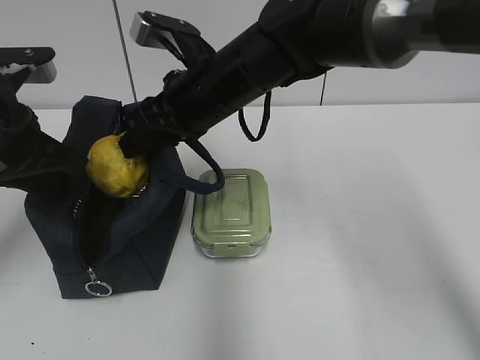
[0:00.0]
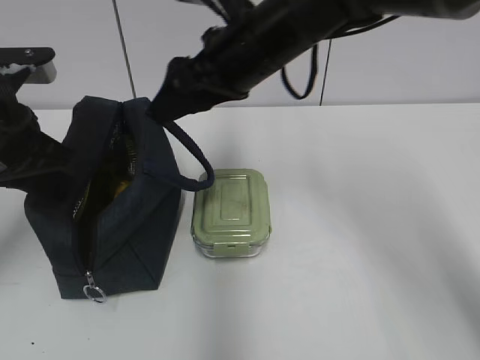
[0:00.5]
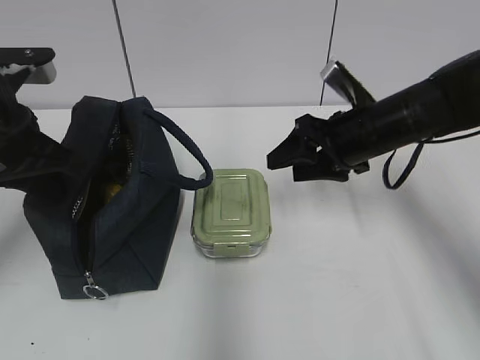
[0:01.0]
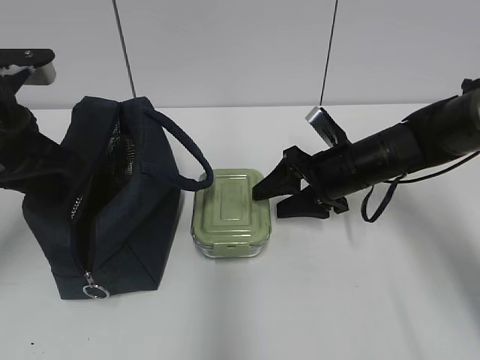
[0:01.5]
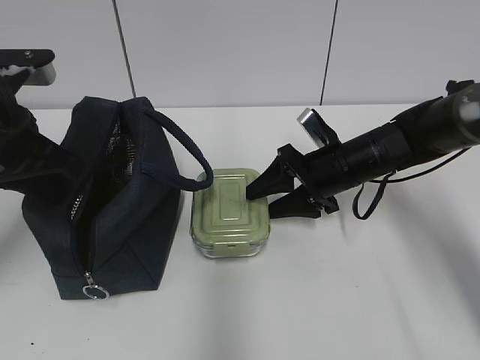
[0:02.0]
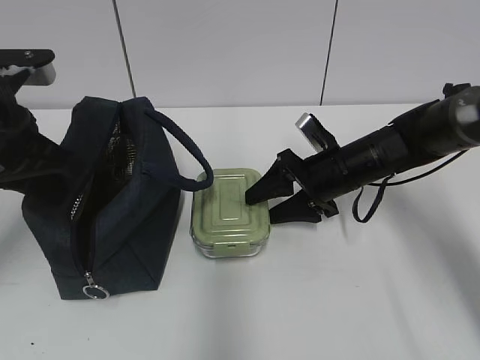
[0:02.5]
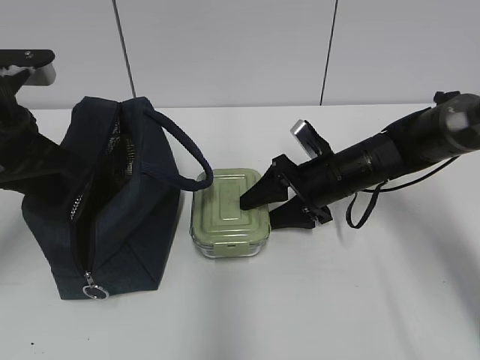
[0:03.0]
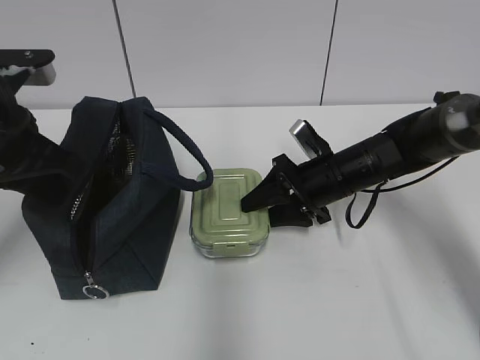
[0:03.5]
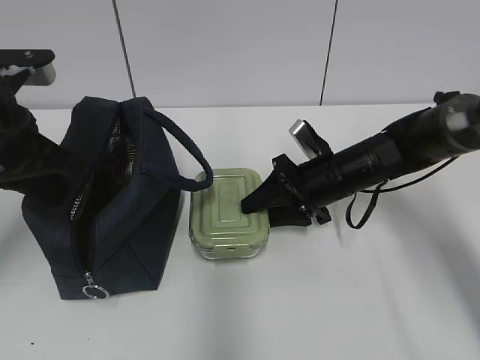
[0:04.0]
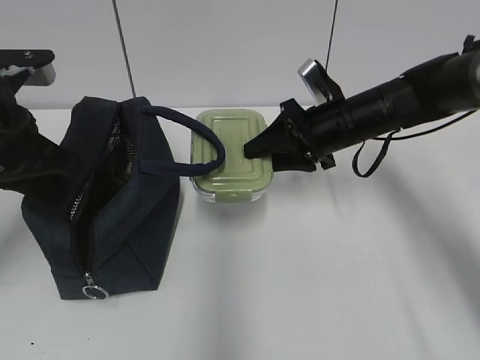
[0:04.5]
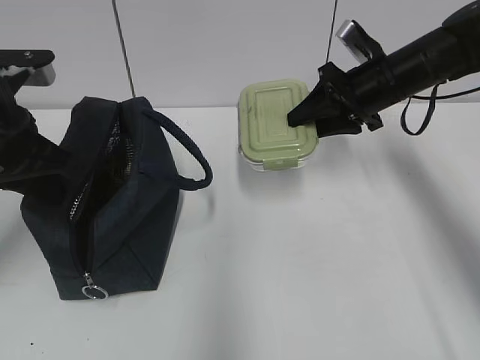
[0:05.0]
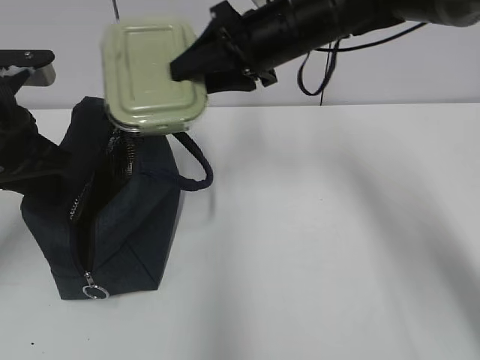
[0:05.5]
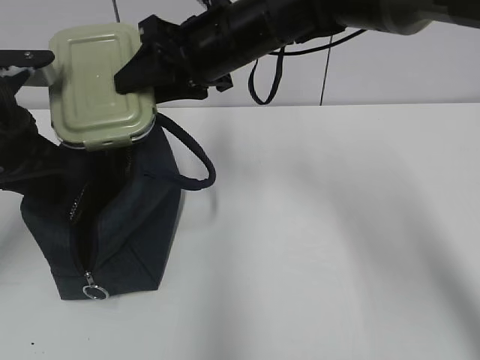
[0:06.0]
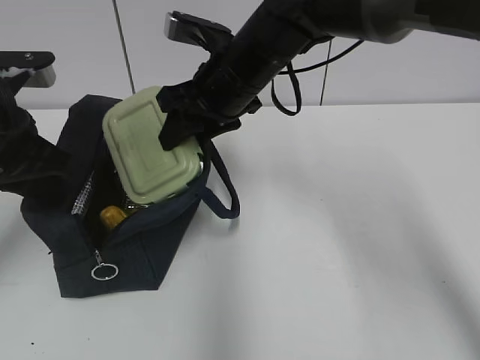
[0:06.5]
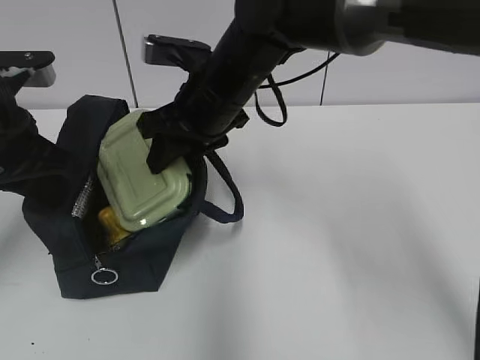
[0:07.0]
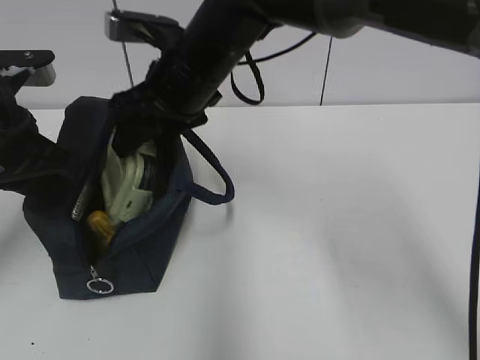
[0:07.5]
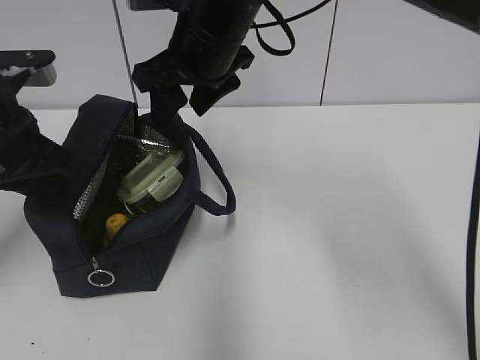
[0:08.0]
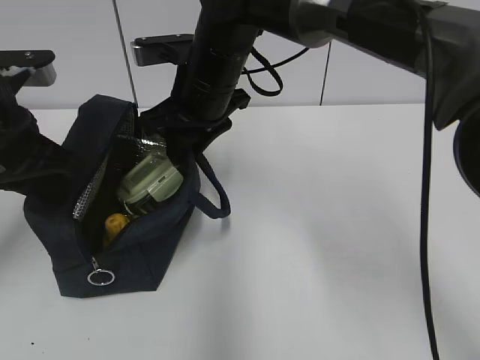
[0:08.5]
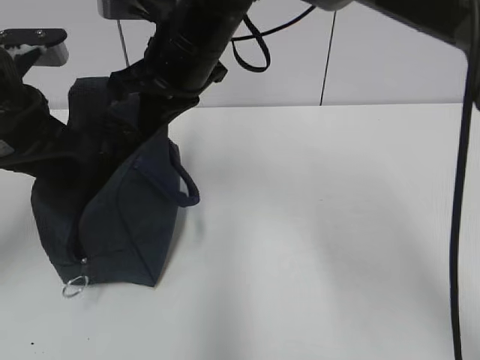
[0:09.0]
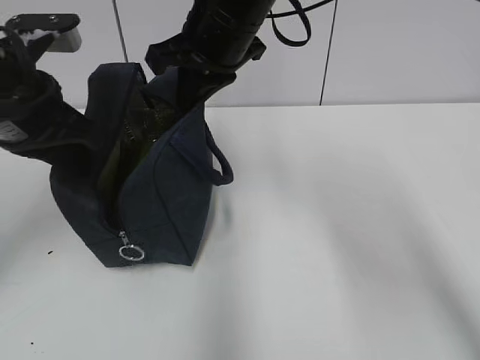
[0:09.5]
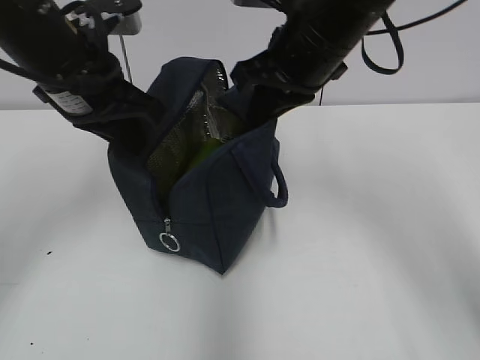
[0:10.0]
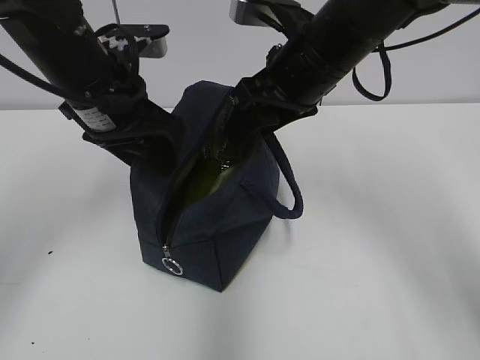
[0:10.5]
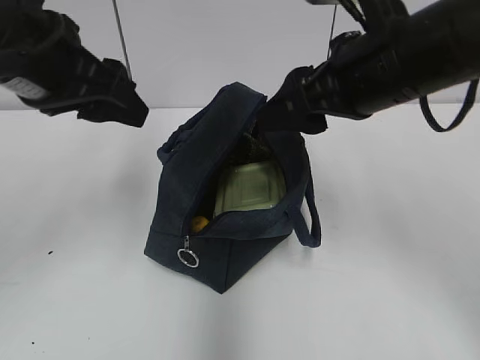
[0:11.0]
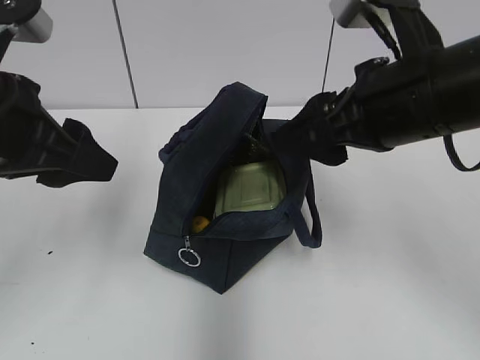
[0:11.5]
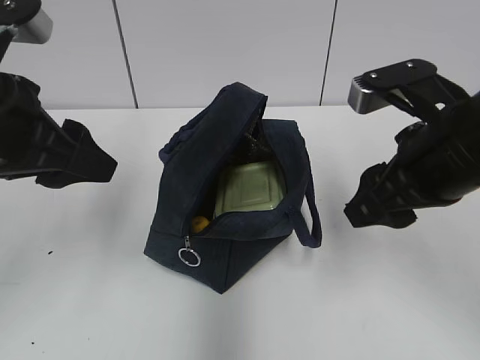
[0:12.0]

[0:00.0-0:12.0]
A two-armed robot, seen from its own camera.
0:00.0 to 0:02.0: The right gripper heads to the right and downward, covering roughly 20 cm, and opens up.
0:02.0 to 0:04.0: The grippers make only small movements.
0:04.0 to 0:06.0: The right gripper is displaced upward and to the left by some 25 cm.
0:08.0 to 0:10.0: The left gripper shifts approximately 10 cm to the right and forward. The right gripper shifts about 10 cm to the right, and closes.
0:10.0 to 0:12.0: The left gripper goes roughly 10 cm backward, and opens its fingers. The right gripper heads backward and to the right, covering some 15 cm, and opens.

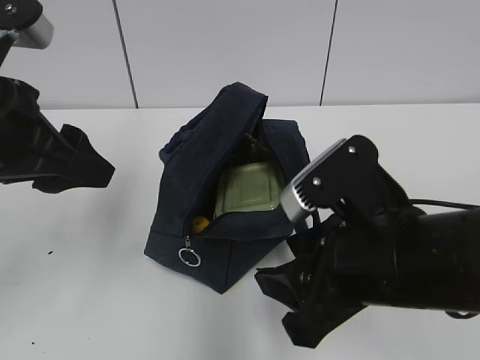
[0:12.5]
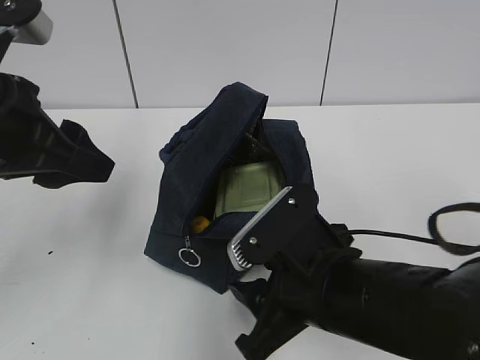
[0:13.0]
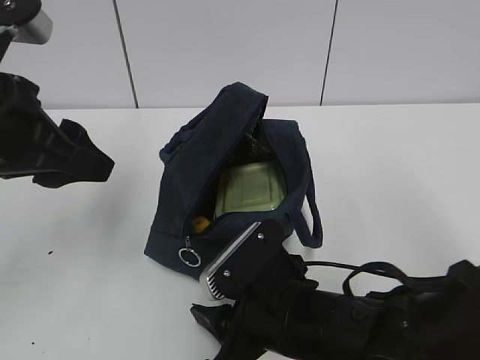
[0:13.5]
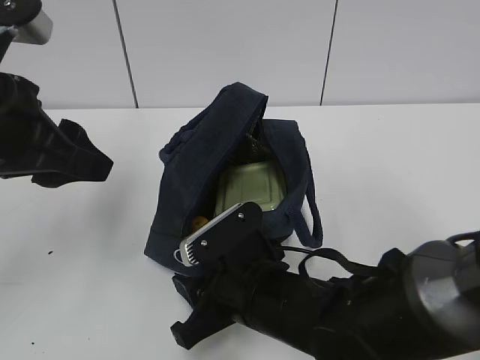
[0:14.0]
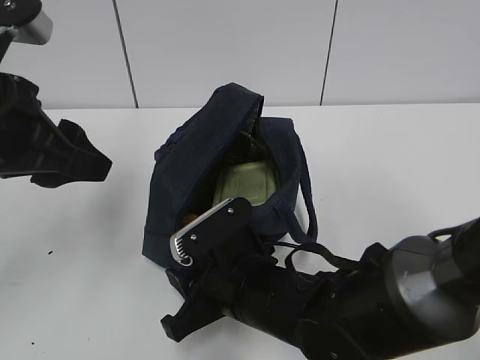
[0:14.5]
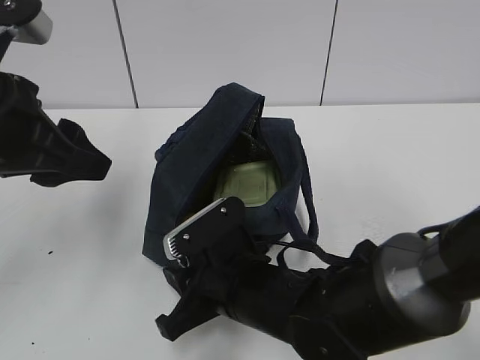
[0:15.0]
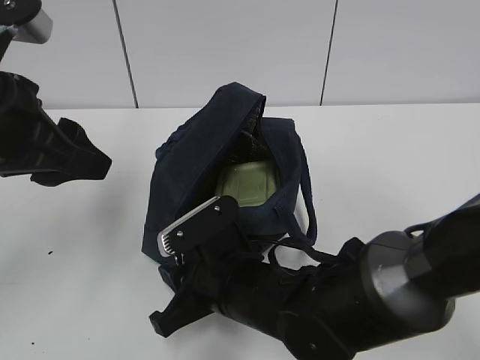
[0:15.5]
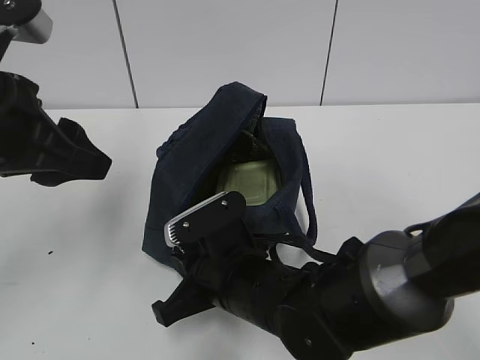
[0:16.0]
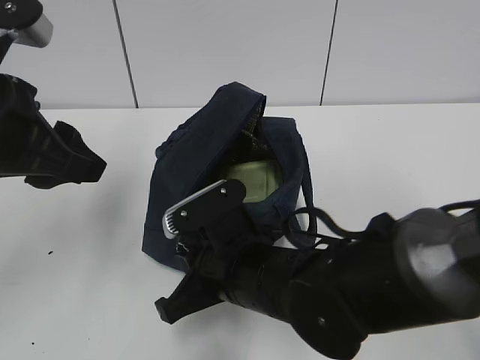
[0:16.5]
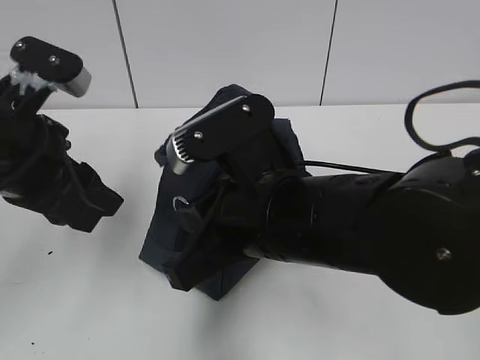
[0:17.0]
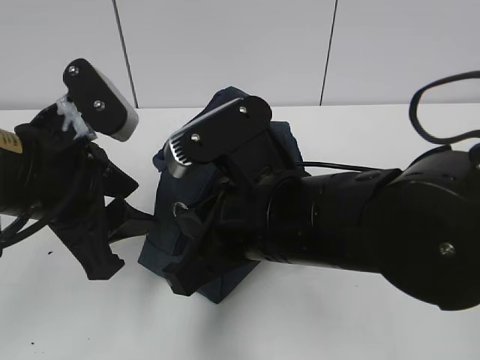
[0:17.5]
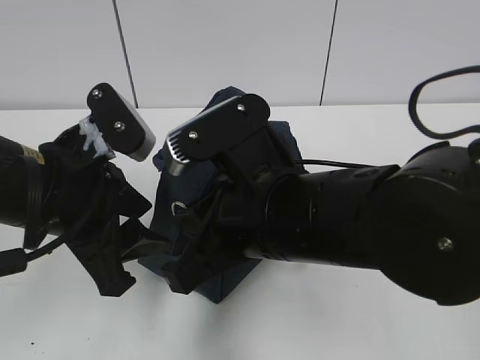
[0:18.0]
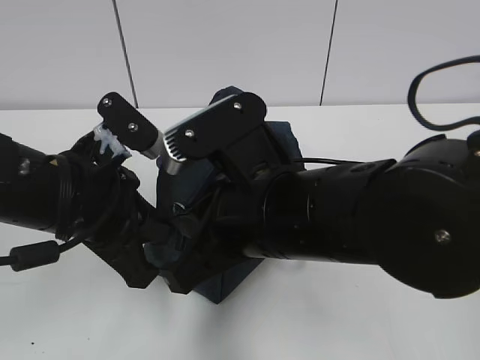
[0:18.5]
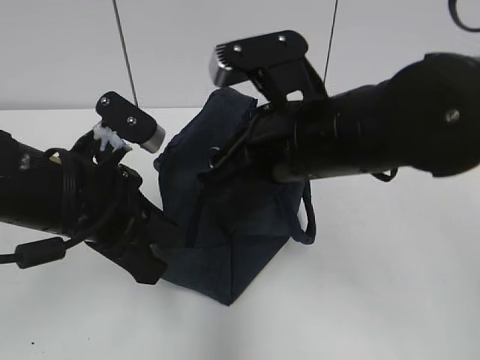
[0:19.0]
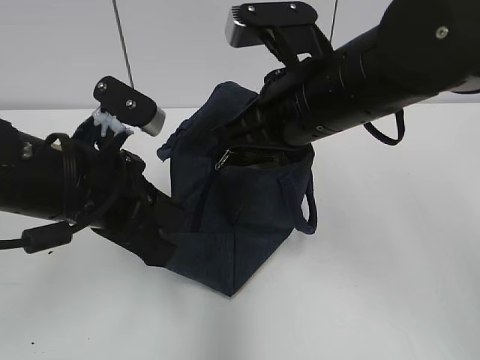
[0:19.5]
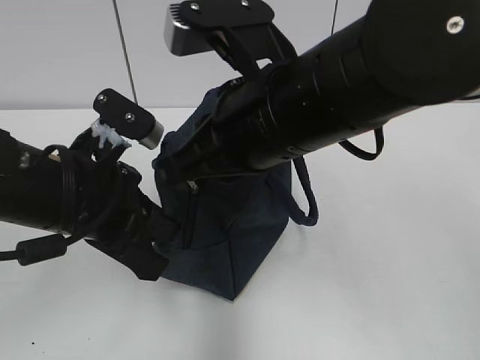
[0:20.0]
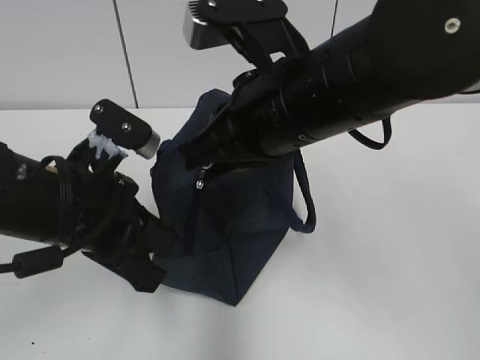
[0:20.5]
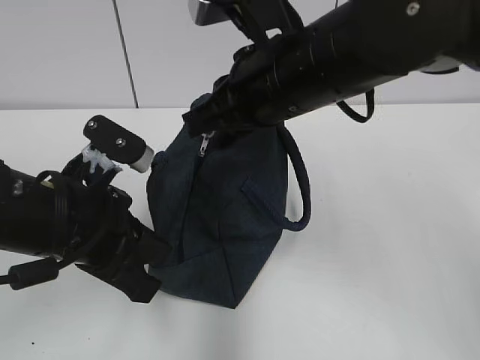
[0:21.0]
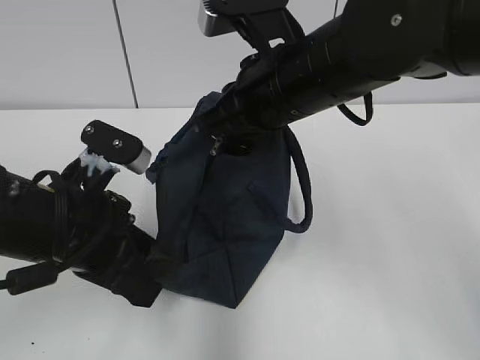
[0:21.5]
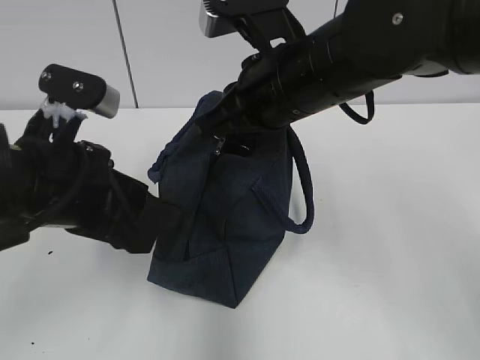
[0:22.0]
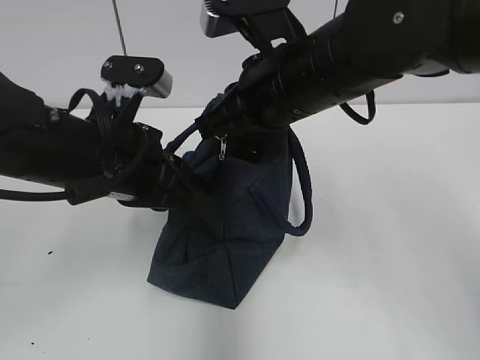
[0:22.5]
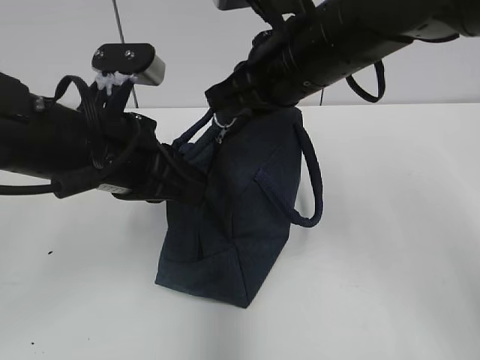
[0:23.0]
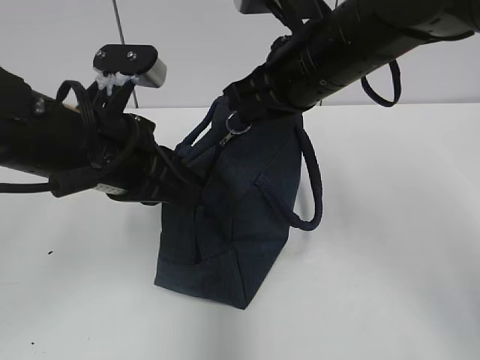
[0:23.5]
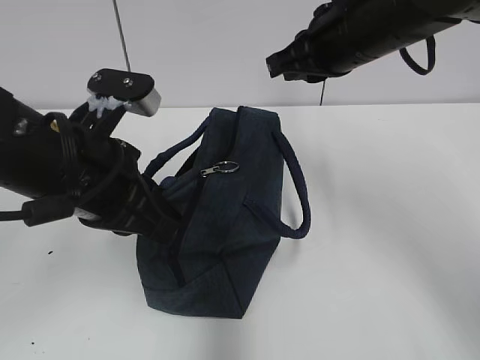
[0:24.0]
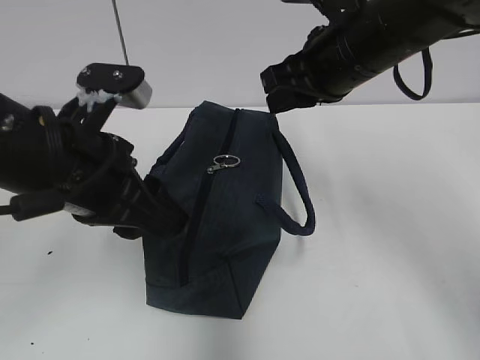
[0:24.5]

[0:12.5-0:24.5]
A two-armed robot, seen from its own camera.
0:12.5 to 0:14.5: The right gripper is displaced downward, to the left and forward by some 15 cm.
0:14.5 to 0:16.5: The right gripper closes.
0:16.5 to 0:18.5: The left gripper goes about 10 cm downward and to the right, and closes its fingers, while the right gripper moves upward, approximately 10 cm.
0:18.5 to 0:20.5: The right gripper travels upward and forward by some 10 cm.
0:20.5 to 0:22.5: The left gripper opens, then closes once more, while the right gripper moves forward, about 5 cm.
0:22.5 to 0:24.5: The left gripper opens; the right gripper travels to the right by roughly 5 cm, and opens its fingers.

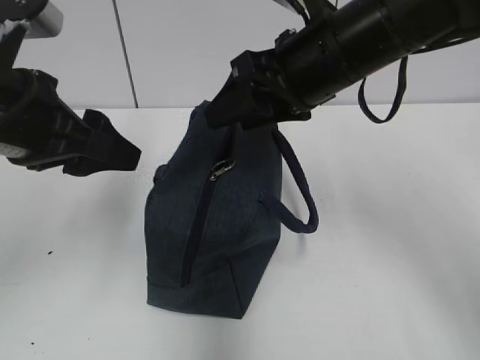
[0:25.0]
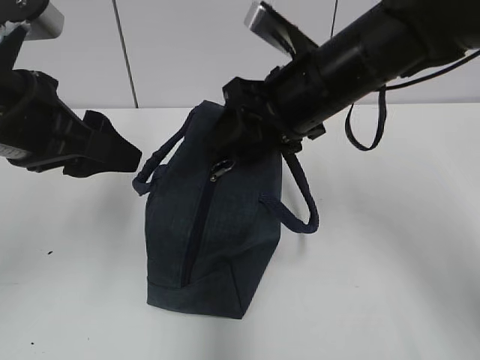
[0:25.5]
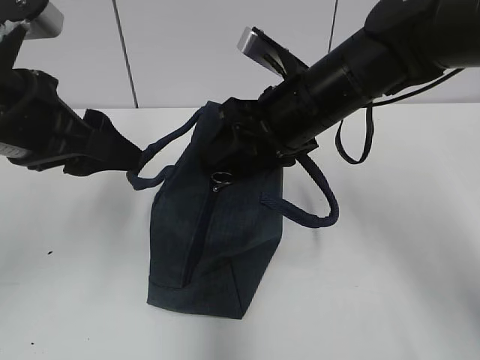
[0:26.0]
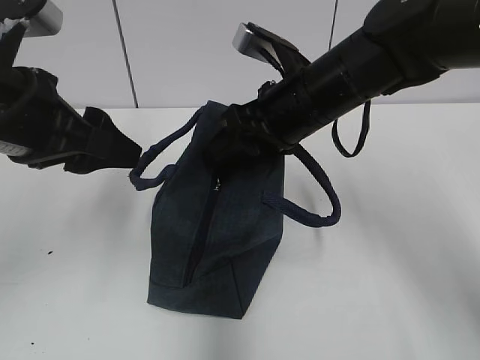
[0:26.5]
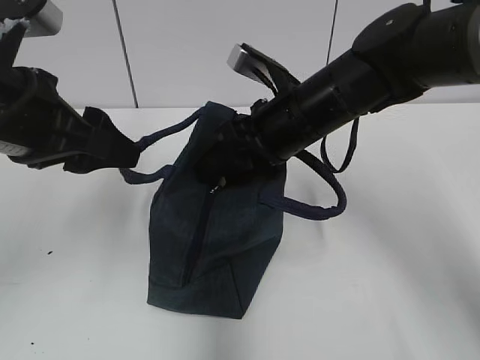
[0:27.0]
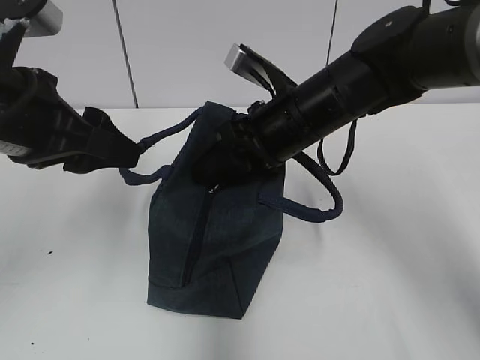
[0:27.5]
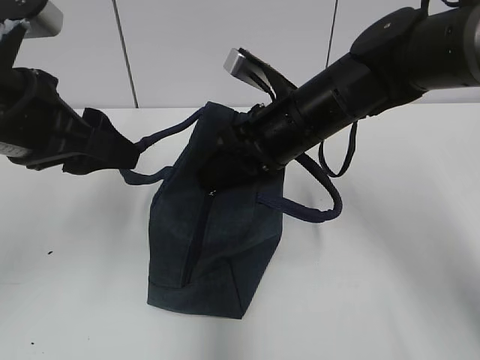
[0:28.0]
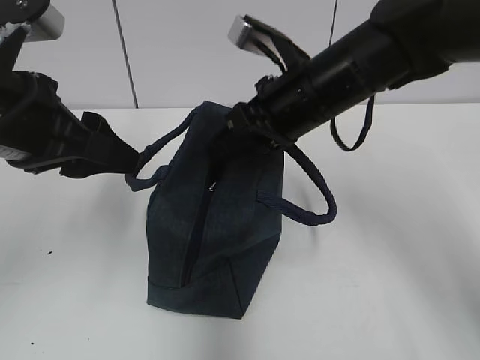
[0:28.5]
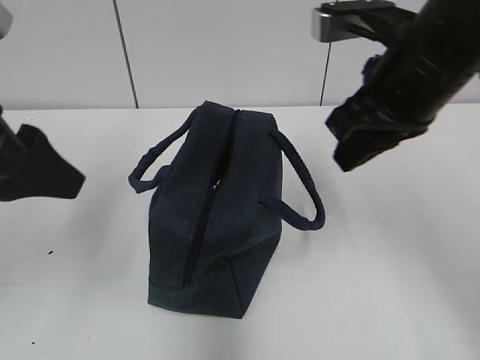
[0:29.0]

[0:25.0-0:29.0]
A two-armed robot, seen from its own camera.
0:25.0 to 0:27.0: The right gripper is displaced downward by some 10 cm.
0:27.0 to 0:29.0: The right gripper travels upward, to the right and backward by about 15 cm, and closes its fingers. The left gripper ends up about 5 cm from where it was.
